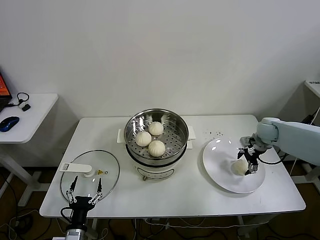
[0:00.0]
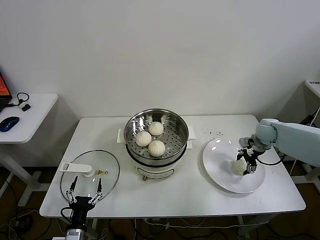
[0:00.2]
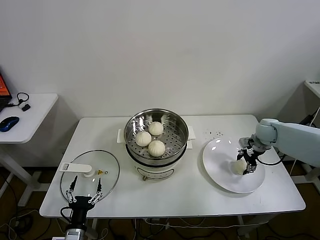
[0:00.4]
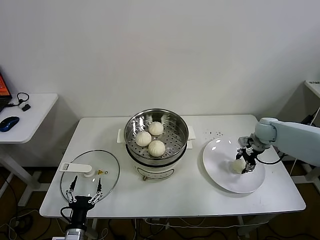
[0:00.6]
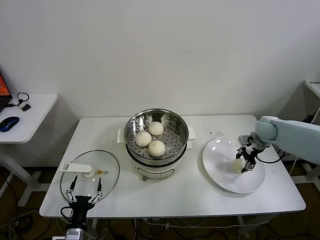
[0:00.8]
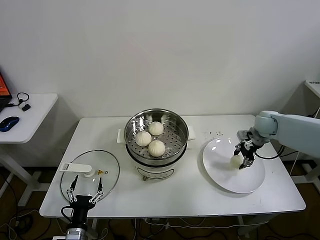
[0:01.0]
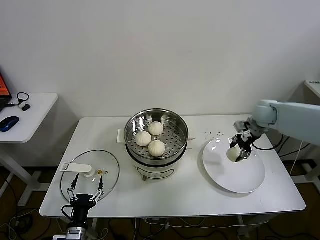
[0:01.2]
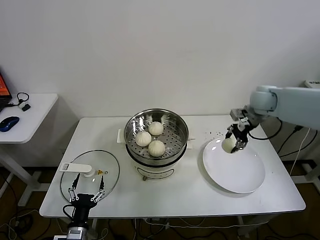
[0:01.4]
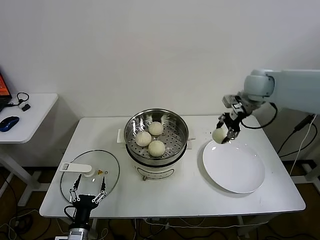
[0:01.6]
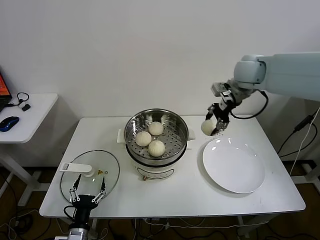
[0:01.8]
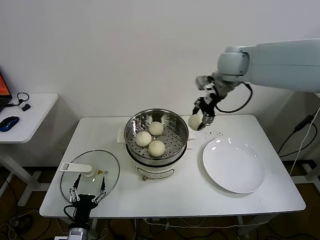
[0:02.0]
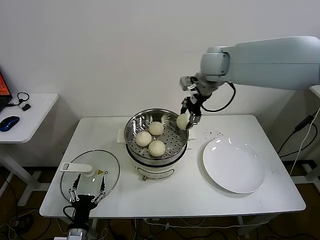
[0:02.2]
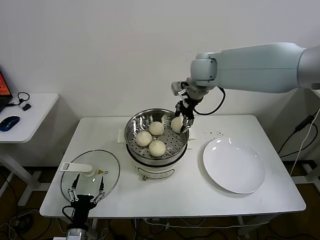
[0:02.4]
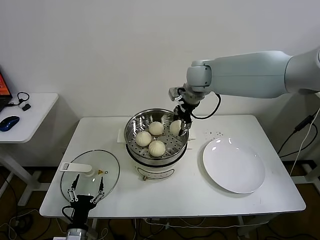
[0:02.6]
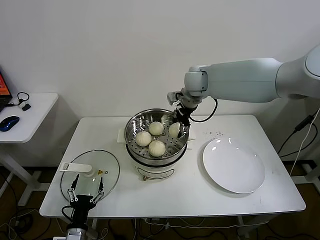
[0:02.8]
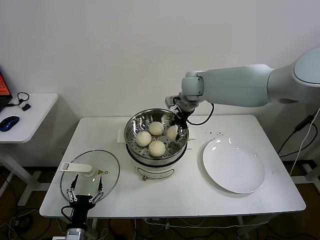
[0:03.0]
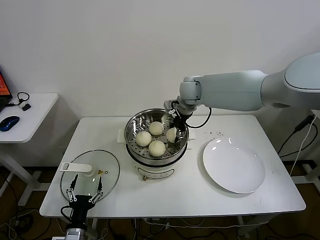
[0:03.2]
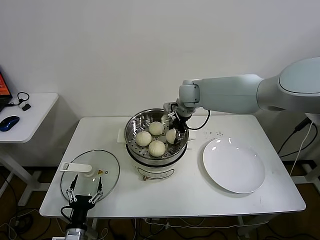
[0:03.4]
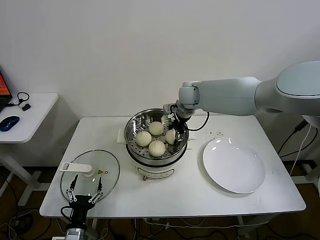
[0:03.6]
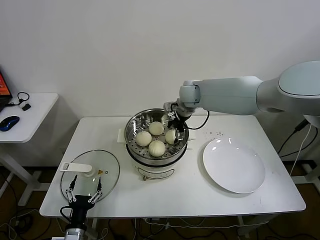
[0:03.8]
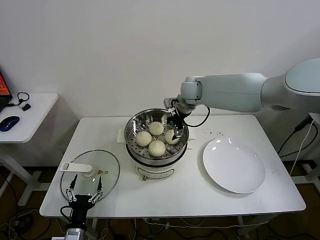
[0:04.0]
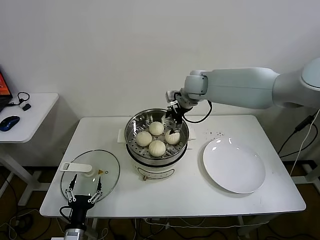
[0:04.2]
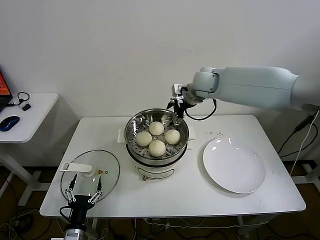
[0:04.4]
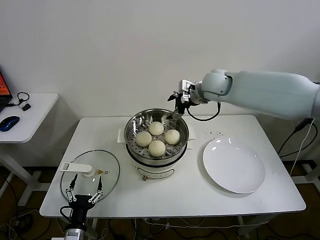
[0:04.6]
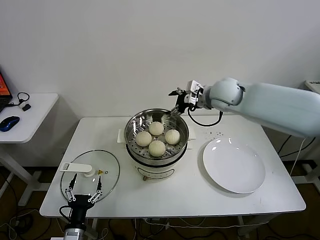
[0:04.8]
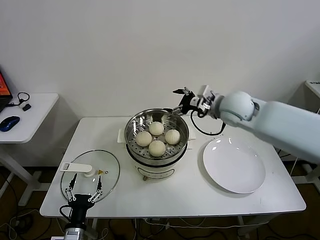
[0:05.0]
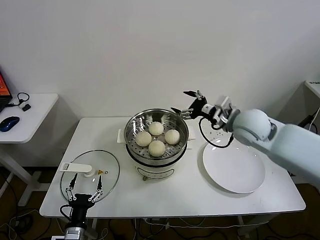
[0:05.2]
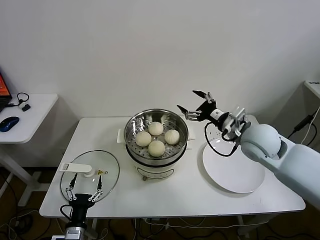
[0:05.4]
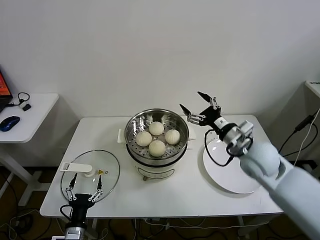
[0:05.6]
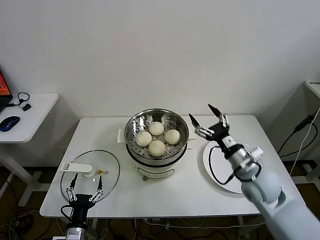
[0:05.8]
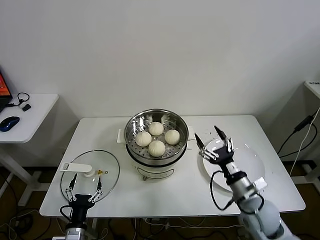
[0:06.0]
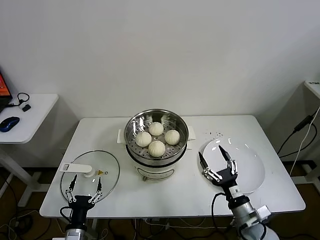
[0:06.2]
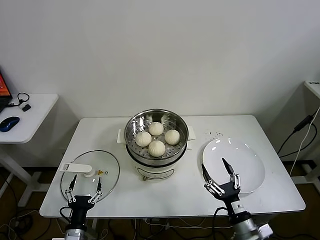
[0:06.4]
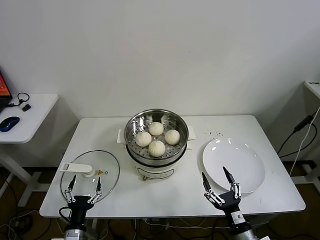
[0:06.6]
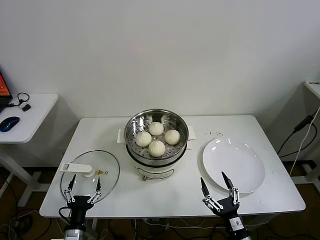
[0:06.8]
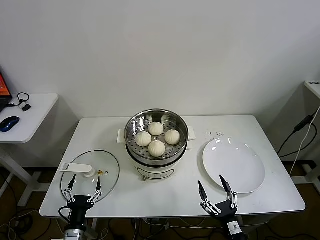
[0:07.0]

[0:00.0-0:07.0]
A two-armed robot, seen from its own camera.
Task of the whole recording: take steamed baozi put them in steamer.
Step, 0:00.6 to 0:03.8: Place the baozi on the steamer with right gripper.
0:00.0 to 0:01.4: The right gripper heads upward and to the left, covering roughly 15 cm, and closes up.
0:01.4 to 0:02.8: The right gripper shifts roughly 25 cm to the left.
0:02.8 to 0:04.2: The right gripper opens up.
0:04.2 to 0:05.6: The right gripper goes some 25 cm backward and to the right.
0:05.6 to 0:07.0: The right gripper shifts about 35 cm backward and downward.

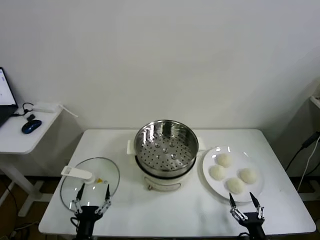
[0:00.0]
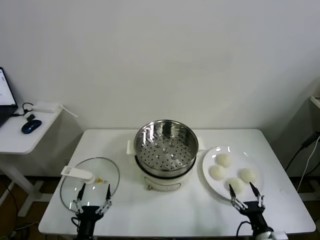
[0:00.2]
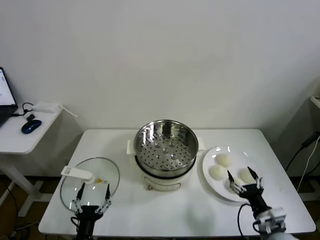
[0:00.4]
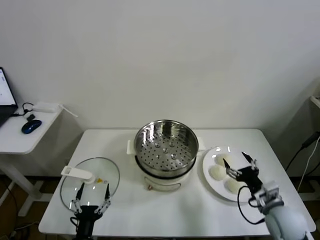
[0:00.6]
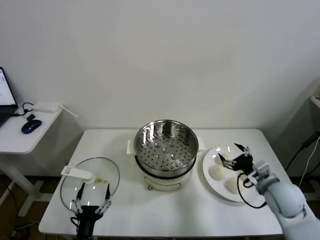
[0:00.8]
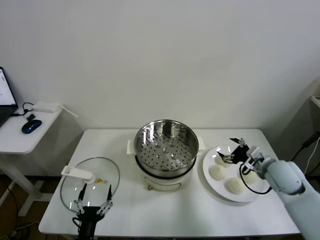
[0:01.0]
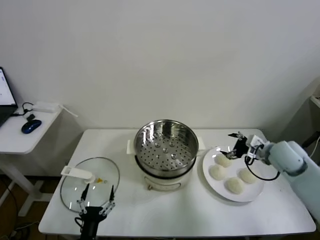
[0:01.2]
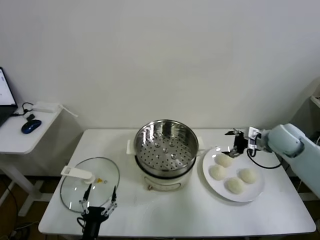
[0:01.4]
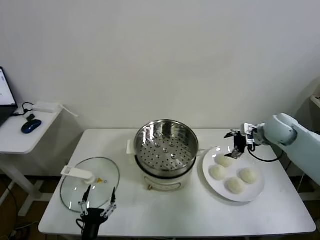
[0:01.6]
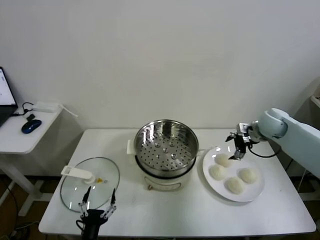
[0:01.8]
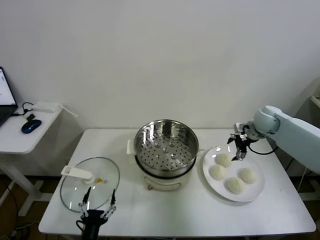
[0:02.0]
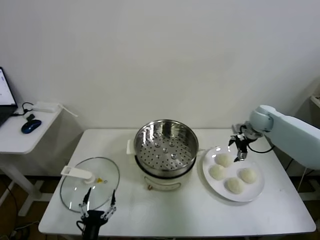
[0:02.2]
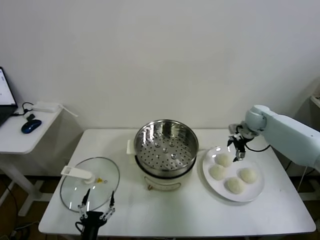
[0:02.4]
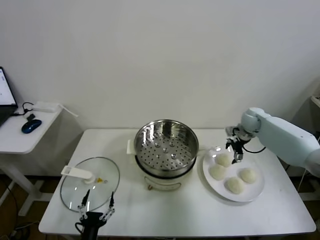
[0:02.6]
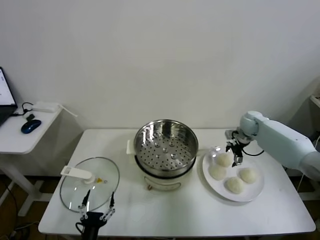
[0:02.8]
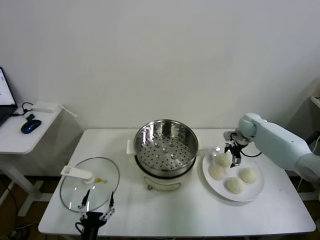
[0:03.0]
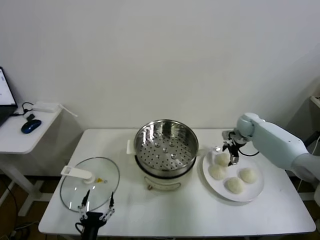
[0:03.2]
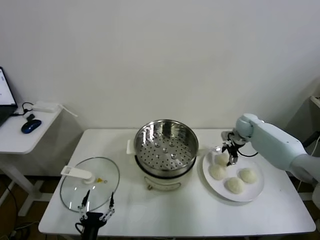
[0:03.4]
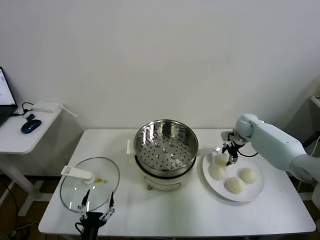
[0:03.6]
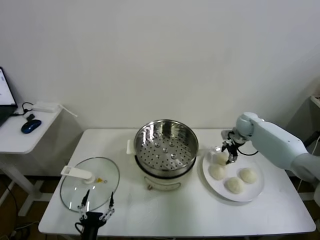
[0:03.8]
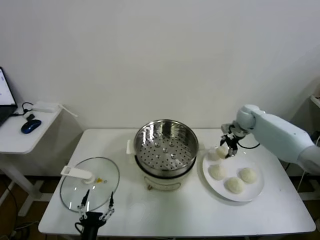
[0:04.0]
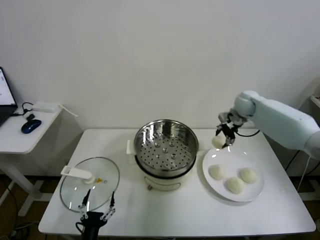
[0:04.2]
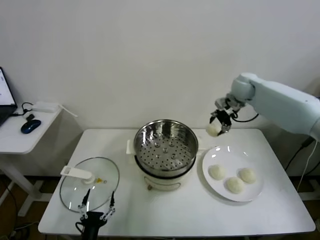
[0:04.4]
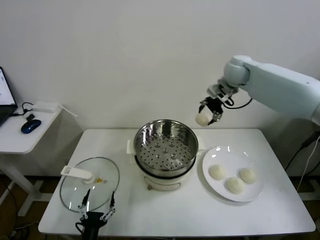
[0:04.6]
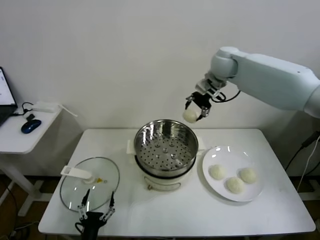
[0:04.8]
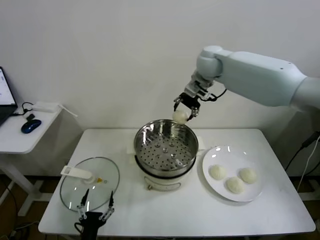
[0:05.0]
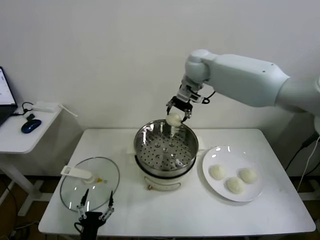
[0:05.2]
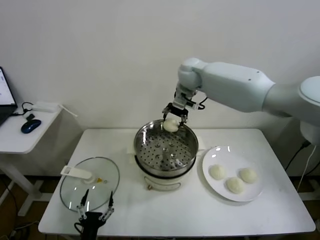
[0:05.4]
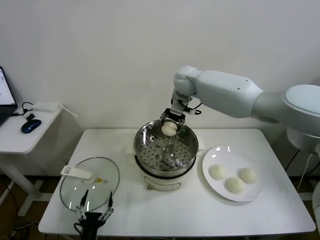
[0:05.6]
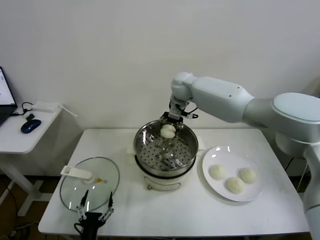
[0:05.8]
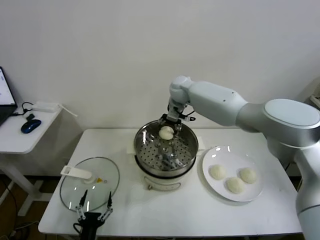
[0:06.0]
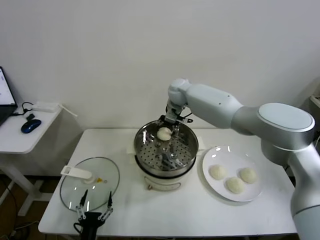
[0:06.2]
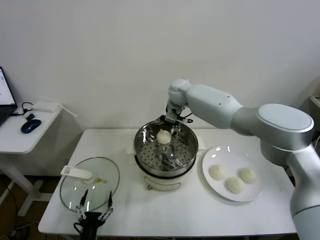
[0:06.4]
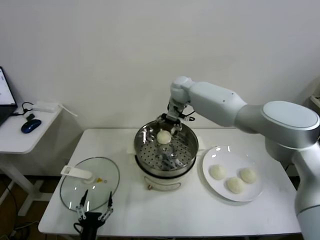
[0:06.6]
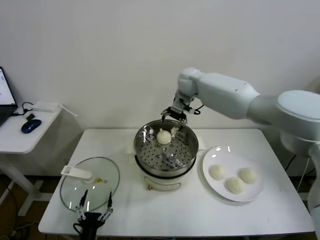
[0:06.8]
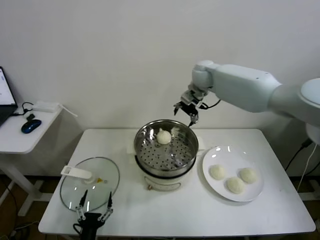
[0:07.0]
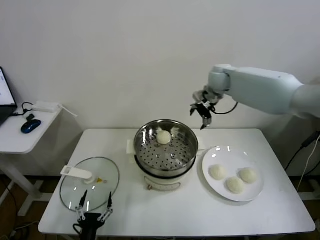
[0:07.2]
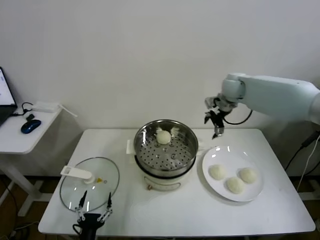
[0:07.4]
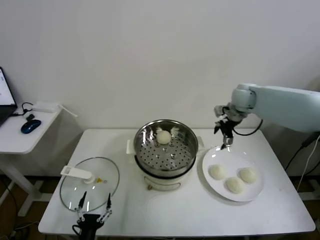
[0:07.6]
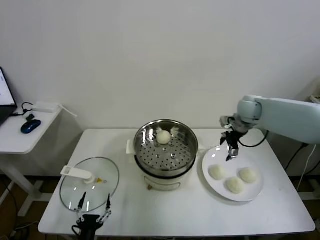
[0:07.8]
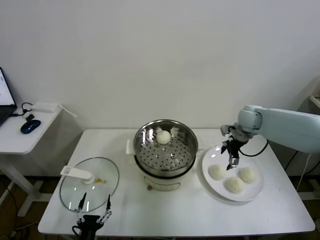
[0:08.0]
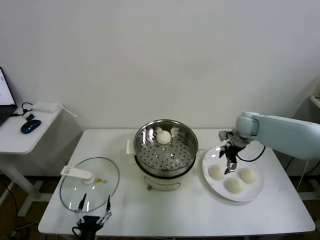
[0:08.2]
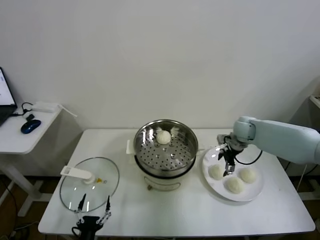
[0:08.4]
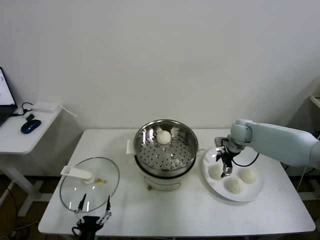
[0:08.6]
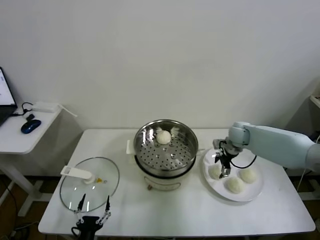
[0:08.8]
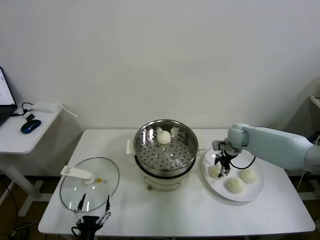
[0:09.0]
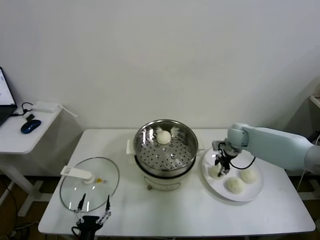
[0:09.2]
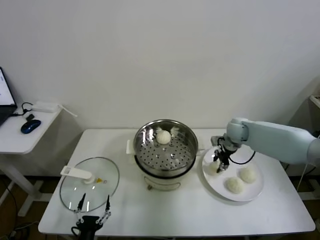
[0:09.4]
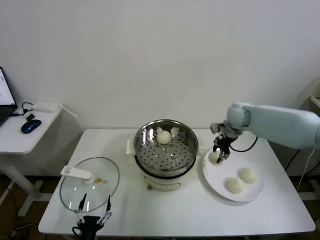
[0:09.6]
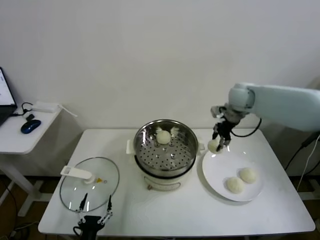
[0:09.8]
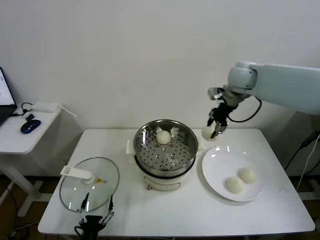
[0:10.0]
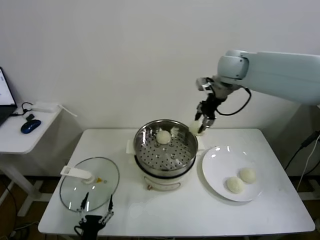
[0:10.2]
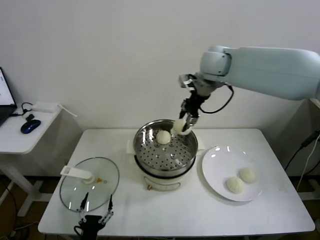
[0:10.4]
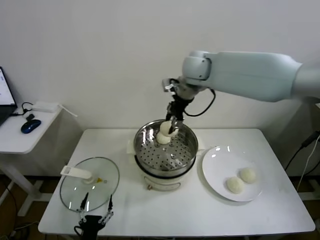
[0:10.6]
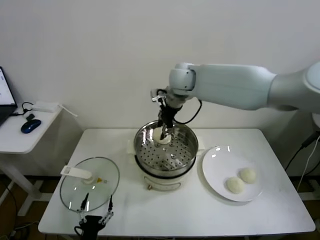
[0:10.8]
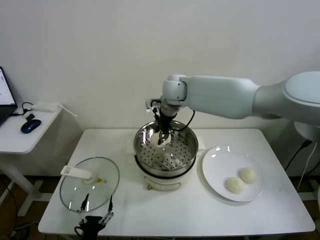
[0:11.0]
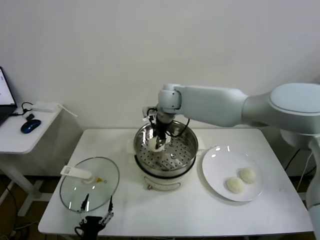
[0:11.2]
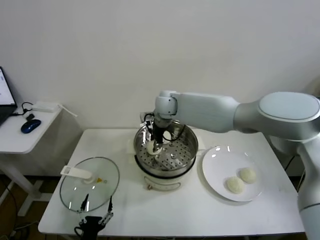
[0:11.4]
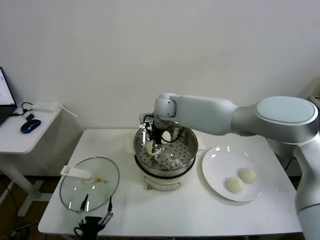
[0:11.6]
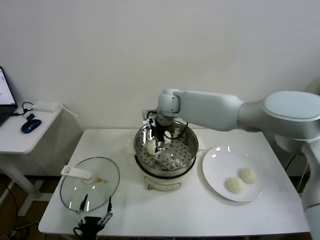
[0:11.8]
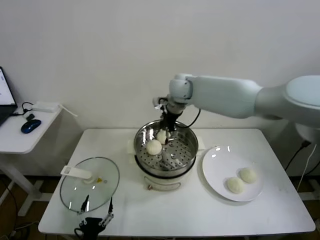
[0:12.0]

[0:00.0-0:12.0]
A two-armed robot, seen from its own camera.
Task of the whole recording: take steamed baozi put them in steamer.
Step, 0:00.0 to 0:03.8: Grasp the baozi in the plate with right gripper.
Step, 0:04.0 to 0:06.6: Place the baozi on the steamer with right gripper.
Step, 0:06.8 to 0:09.2: Grasp the baozi in the plate with right gripper.
Step, 0:09.4 to 0:11.8: Place the baozi on the steamer with right gripper.
0:01.6 to 0:03.0: The right gripper moves forward and downward, some 15 cm.
0:03.0 to 0:04.4: The right gripper moves upward and to the left, about 25 cm, and closes.
0:04.4 to 0:06.0: The right gripper travels to the left by roughly 20 cm.
0:06.0 to 0:07.6: The right gripper is displaced to the right by some 25 cm, and opens up.
0:07.6 to 0:09.0: The right gripper shifts roughly 15 cm downward, and closes its fingers.
0:09.0 to 0:10.4: The right gripper heads upward and to the left, covering approximately 35 cm.
0:10.4 to 0:12.0: The right gripper heads downward and to the left, covering about 10 cm, and opens.

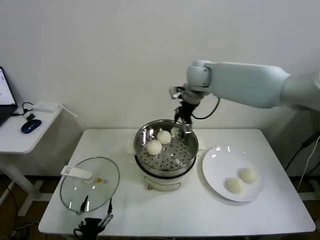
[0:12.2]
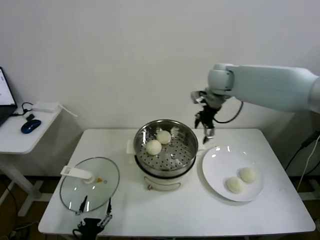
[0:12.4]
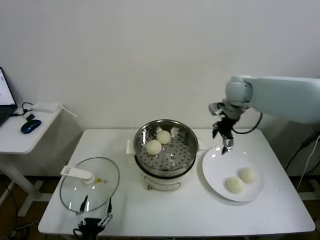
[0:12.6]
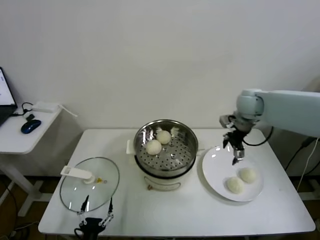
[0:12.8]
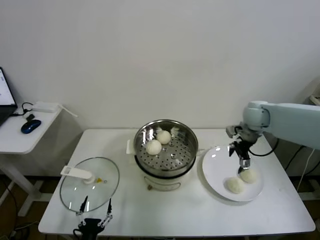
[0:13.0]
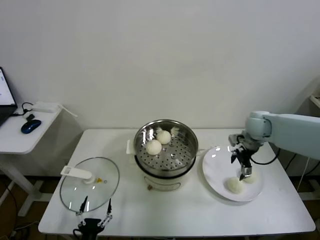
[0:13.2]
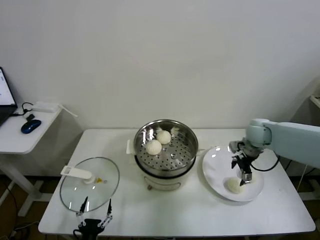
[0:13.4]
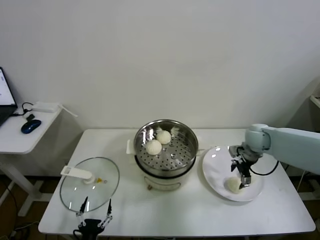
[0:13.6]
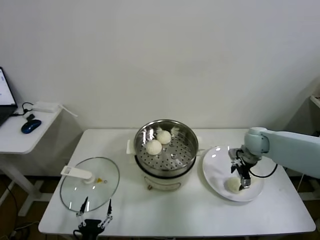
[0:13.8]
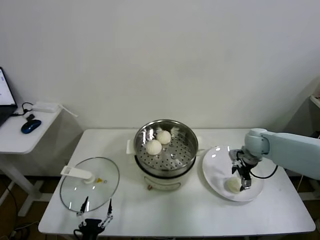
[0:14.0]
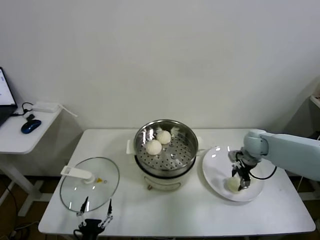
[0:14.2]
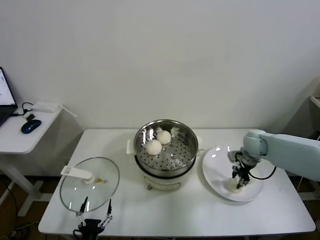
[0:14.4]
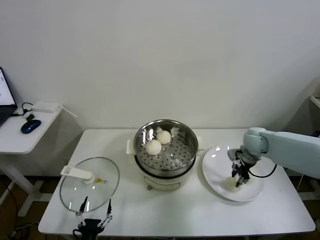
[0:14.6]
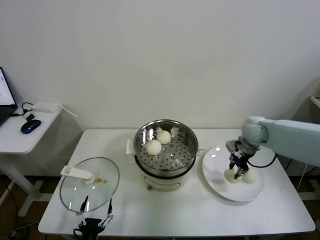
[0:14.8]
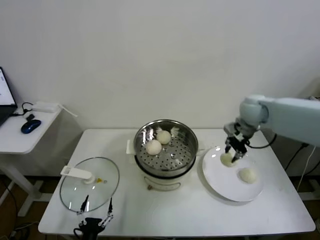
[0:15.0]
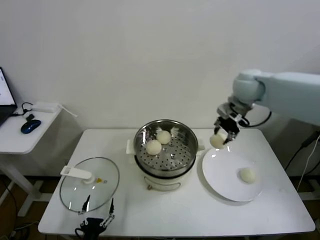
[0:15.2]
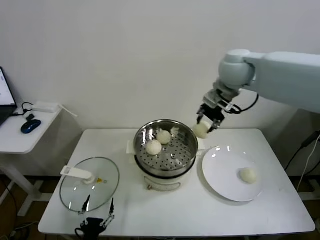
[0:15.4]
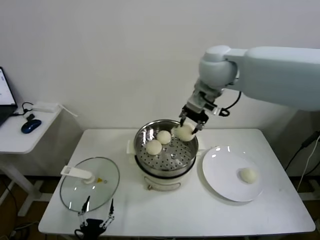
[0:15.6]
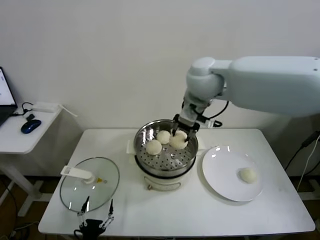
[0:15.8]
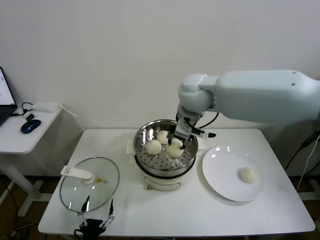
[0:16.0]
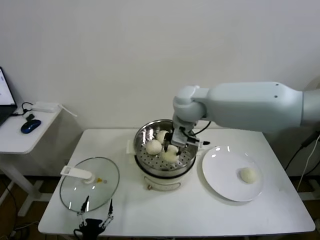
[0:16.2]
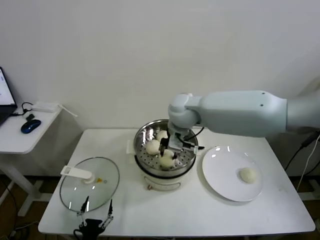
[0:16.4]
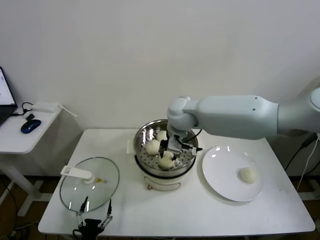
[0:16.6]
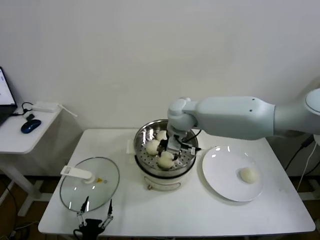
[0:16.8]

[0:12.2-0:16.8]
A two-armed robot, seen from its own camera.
Task of the whole recording: take steamed baozi put them in steamer.
Step, 0:12.2 to 0:14.4: Grasp the baozi in the plate with right gripper.
0:12.2 to 0:13.8: The right gripper heads downward, to the right and backward, covering roughly 30 cm.
0:13.8 to 0:15.2: The right gripper is displaced upward and to the left by some 25 cm, and closes its fingers.
0:15.2 to 0:16.8: The right gripper goes roughly 20 cm to the left and downward.
